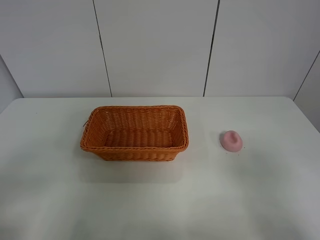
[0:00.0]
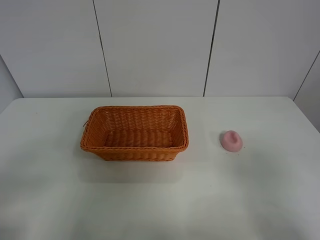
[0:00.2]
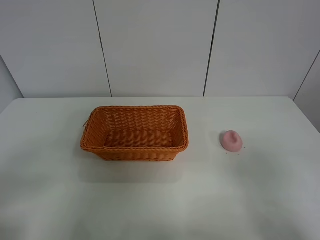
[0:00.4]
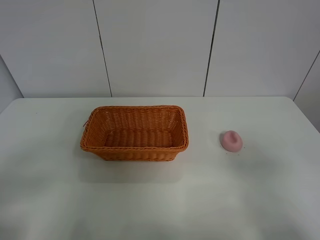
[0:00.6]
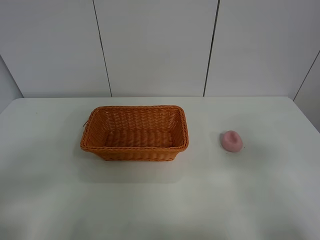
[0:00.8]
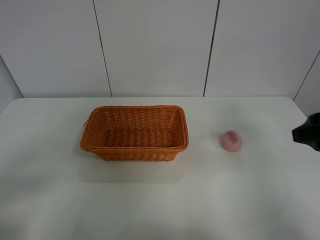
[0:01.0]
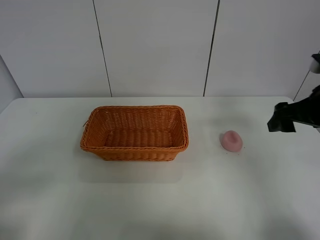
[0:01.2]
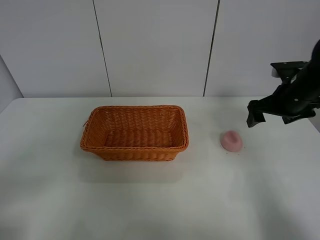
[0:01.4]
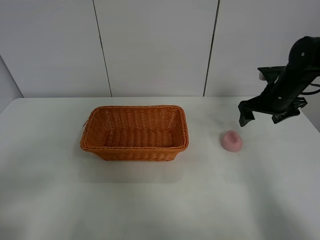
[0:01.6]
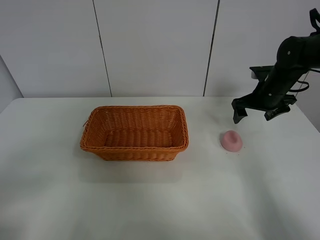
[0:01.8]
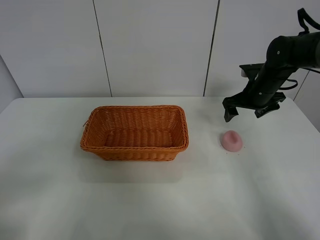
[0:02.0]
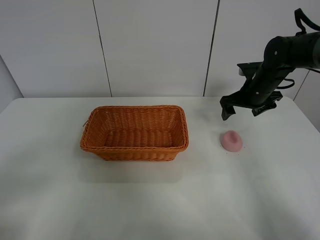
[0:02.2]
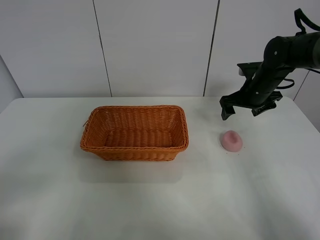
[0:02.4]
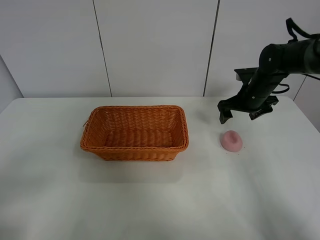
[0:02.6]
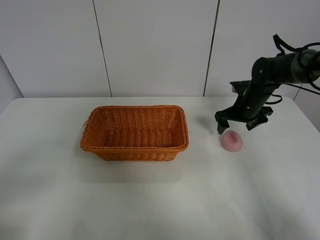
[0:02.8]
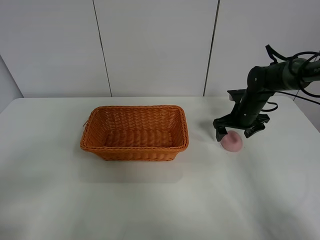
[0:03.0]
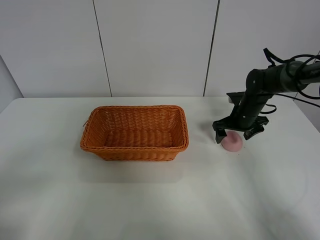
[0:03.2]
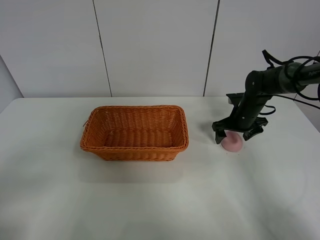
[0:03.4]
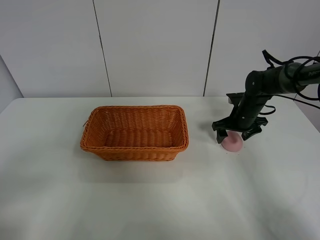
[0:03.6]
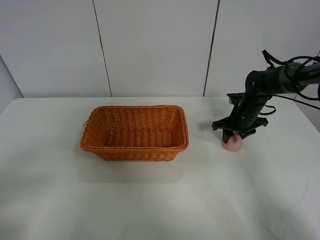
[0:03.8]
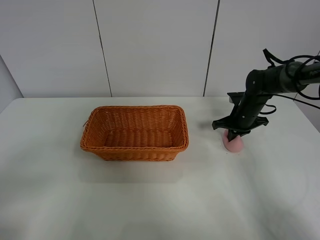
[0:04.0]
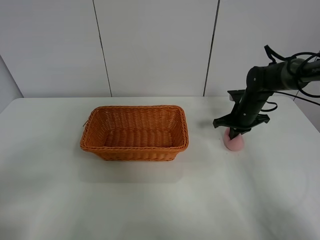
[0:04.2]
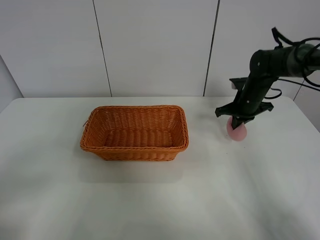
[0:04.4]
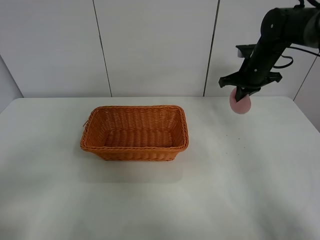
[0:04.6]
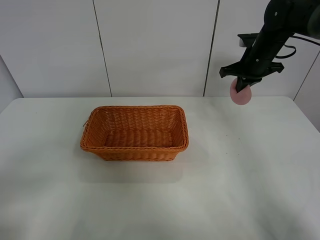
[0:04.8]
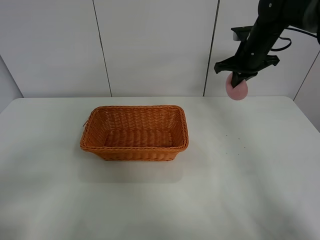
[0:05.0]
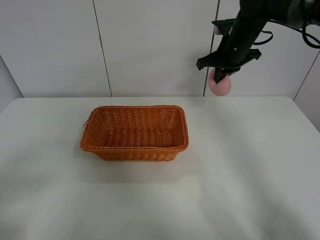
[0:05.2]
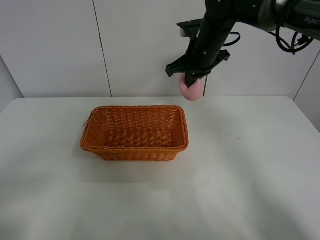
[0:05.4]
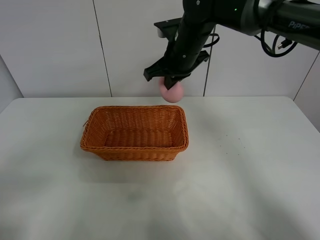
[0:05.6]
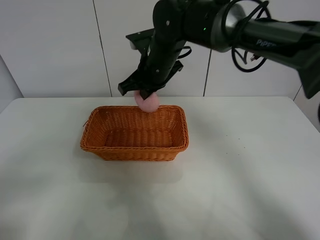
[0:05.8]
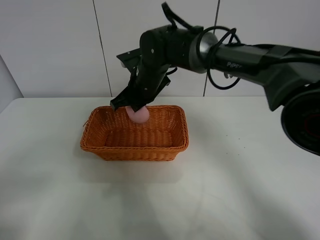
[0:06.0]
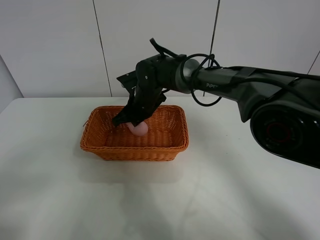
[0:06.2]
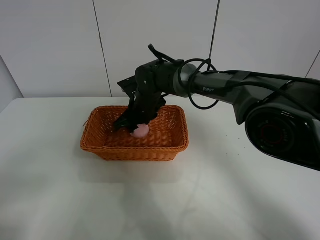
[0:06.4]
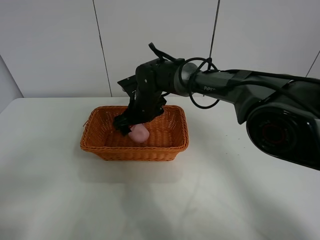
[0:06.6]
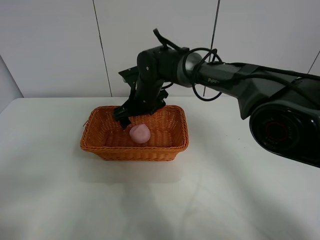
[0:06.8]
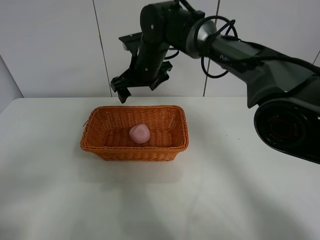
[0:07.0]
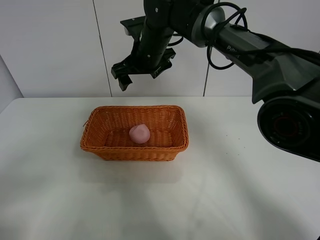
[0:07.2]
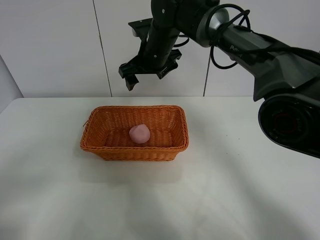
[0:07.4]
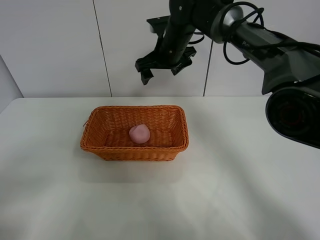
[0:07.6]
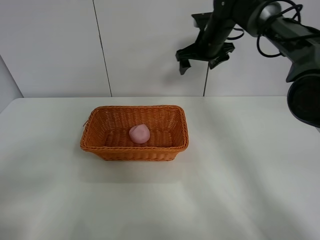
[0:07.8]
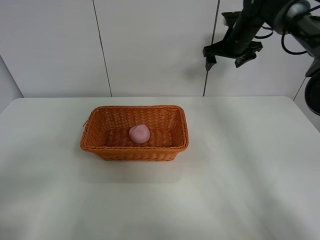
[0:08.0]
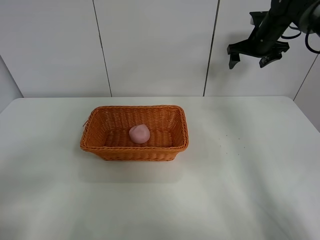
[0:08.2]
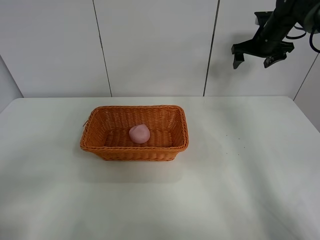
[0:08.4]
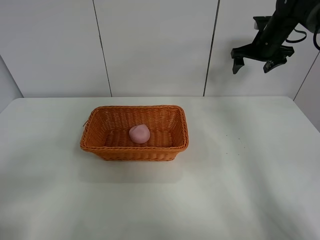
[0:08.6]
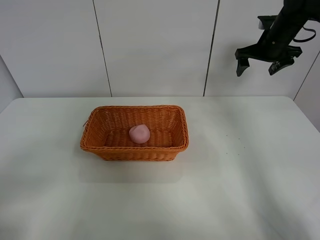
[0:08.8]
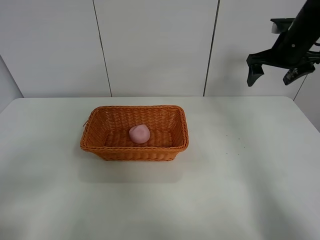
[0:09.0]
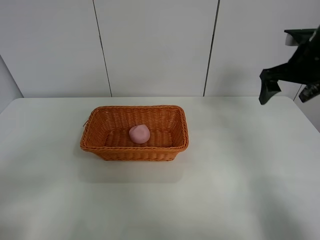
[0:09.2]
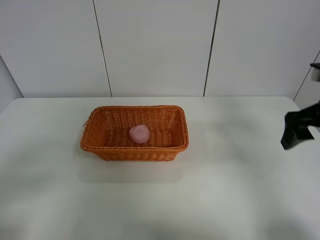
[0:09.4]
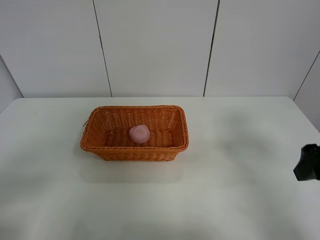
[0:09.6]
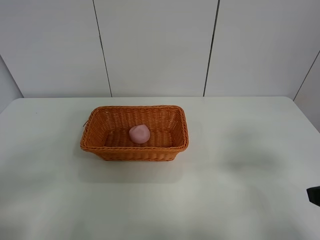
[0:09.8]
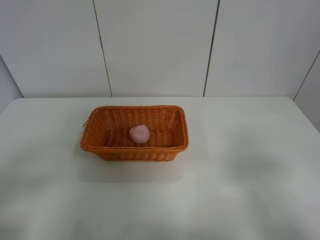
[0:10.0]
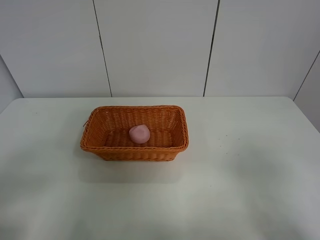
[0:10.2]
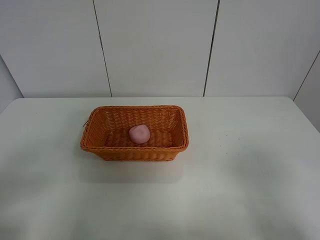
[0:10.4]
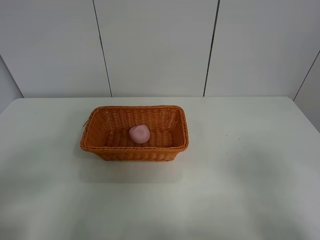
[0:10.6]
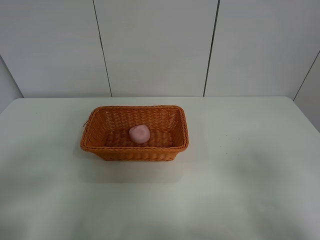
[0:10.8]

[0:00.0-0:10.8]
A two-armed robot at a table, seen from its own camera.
Step, 0:00.0 to 0:04.0: Grasp the peach with right gripper.
Step, 0:04.2 to 0:07.2: Place the peach in the basket with right gripper.
0:00.0 to 0:01.6: The right gripper travels forward by some 40 cm.
0:01.6 to 0:03.0: The right gripper travels downward by about 10 cm.
0:03.0 to 0:04.6: The right gripper heads upward, covering some 10 cm, and closes its fingers.
0:04.6 to 0:06.2: The right gripper moves to the left, roughly 25 cm.
0:06.2 to 0:07.8: The right gripper moves to the right, upward and forward, approximately 25 cm, and opens up.
0:07.8 to 0:09.2: The right gripper is displaced backward and to the right by some 20 cm.
0:09.2 to 0:10.8: The right gripper is displaced backward by some 35 cm.
